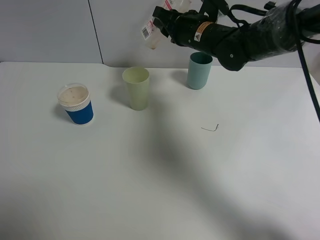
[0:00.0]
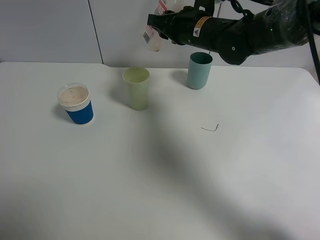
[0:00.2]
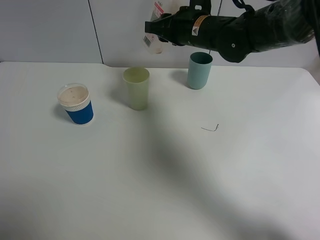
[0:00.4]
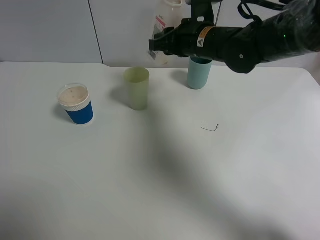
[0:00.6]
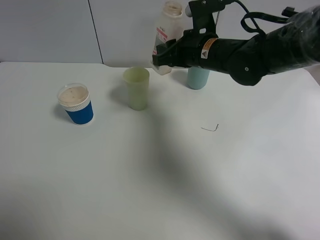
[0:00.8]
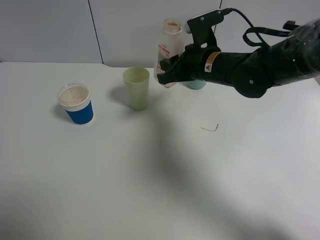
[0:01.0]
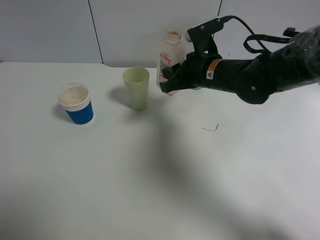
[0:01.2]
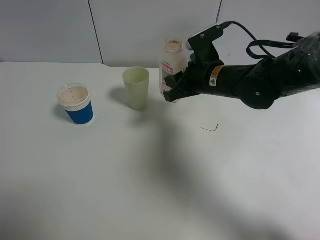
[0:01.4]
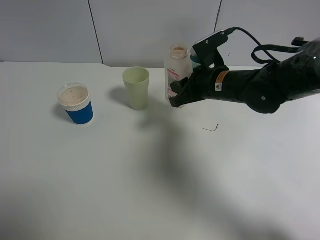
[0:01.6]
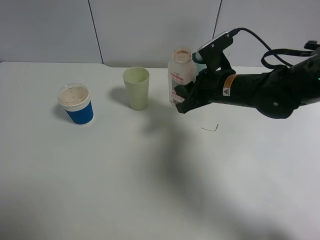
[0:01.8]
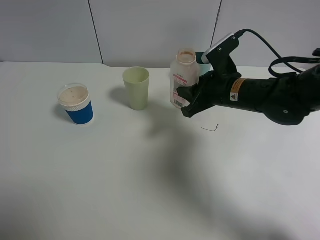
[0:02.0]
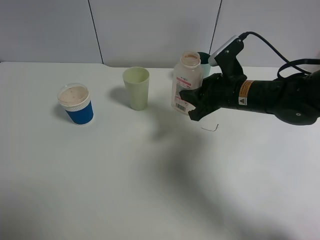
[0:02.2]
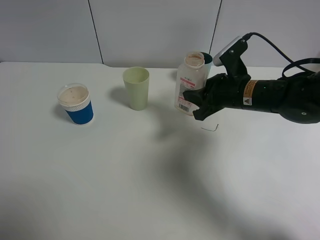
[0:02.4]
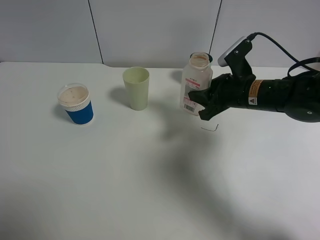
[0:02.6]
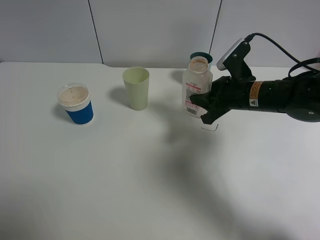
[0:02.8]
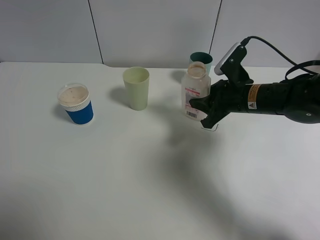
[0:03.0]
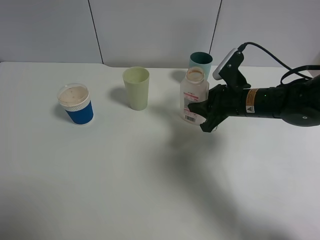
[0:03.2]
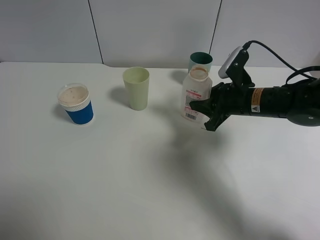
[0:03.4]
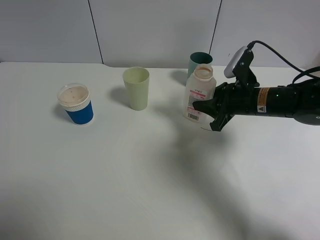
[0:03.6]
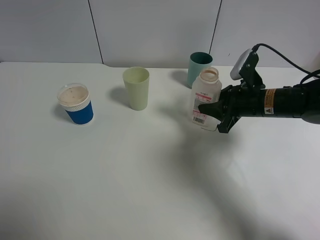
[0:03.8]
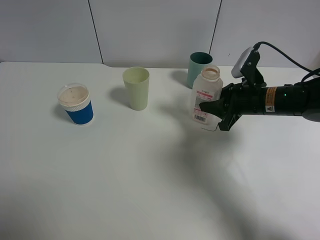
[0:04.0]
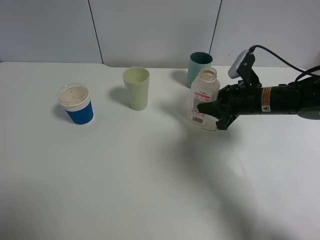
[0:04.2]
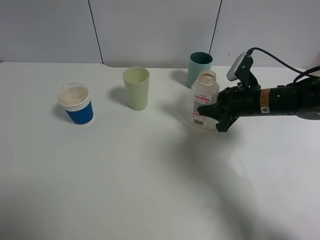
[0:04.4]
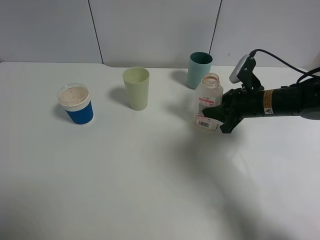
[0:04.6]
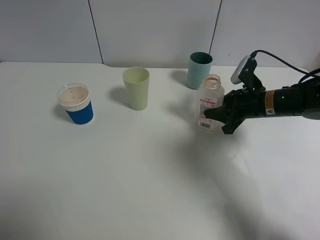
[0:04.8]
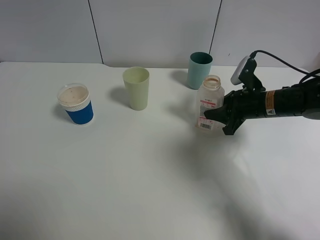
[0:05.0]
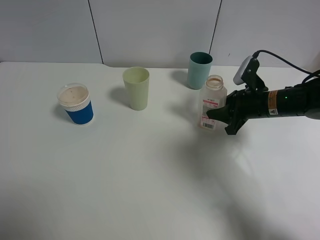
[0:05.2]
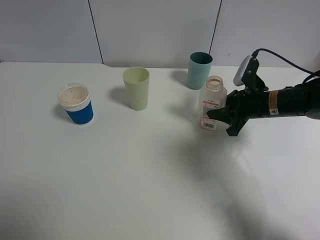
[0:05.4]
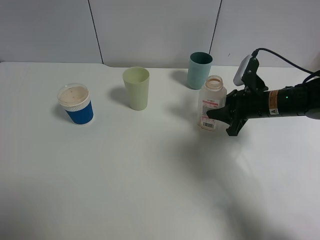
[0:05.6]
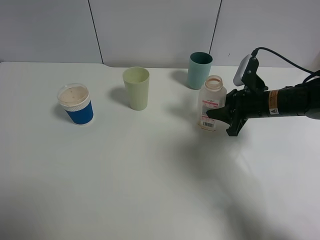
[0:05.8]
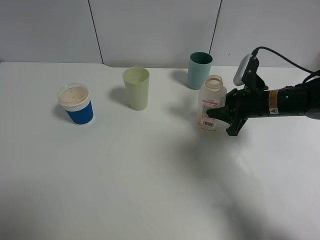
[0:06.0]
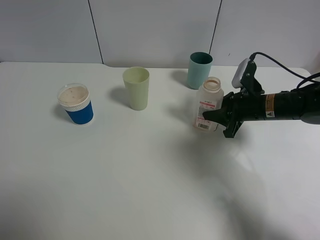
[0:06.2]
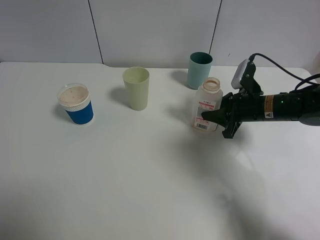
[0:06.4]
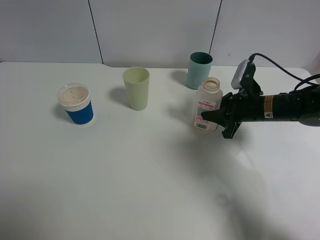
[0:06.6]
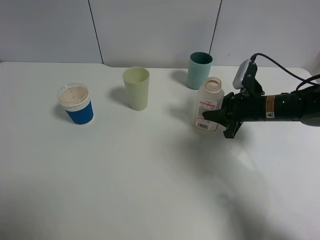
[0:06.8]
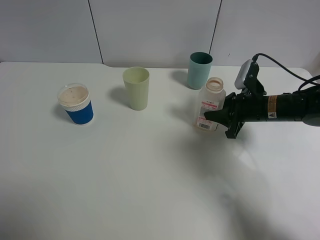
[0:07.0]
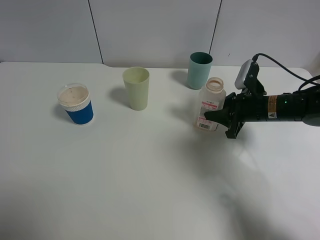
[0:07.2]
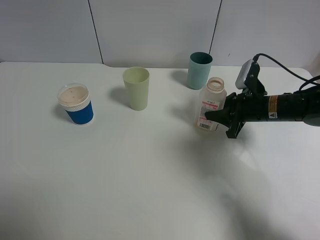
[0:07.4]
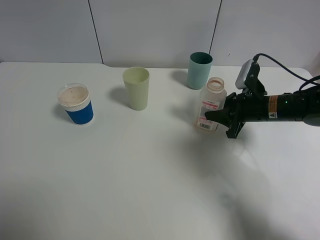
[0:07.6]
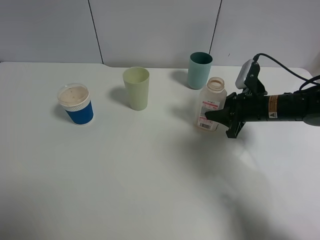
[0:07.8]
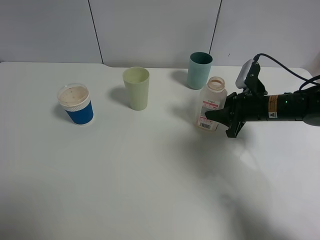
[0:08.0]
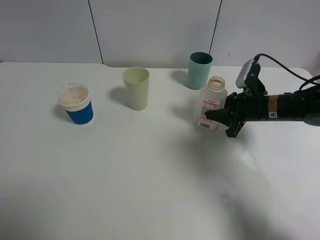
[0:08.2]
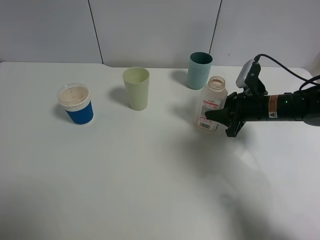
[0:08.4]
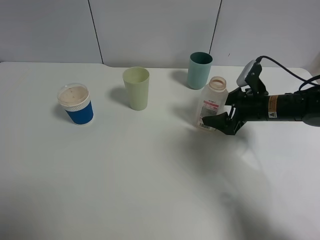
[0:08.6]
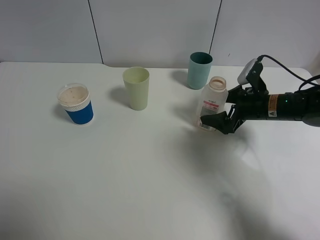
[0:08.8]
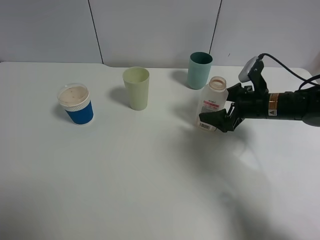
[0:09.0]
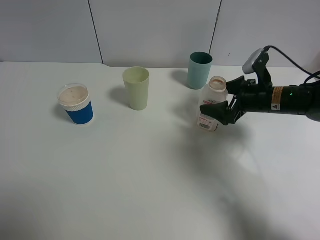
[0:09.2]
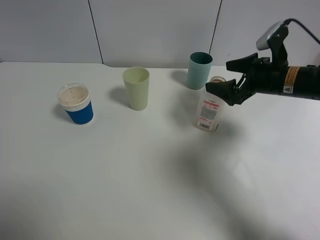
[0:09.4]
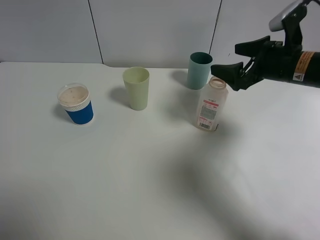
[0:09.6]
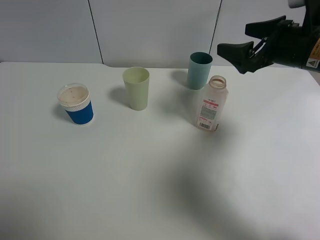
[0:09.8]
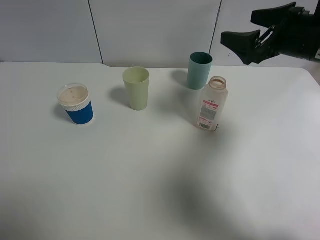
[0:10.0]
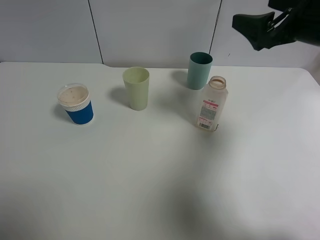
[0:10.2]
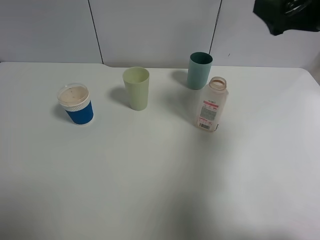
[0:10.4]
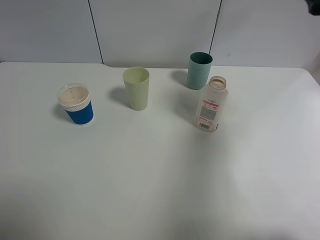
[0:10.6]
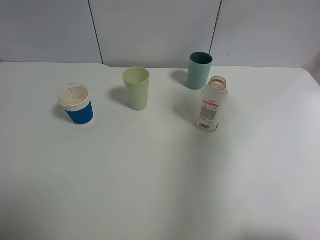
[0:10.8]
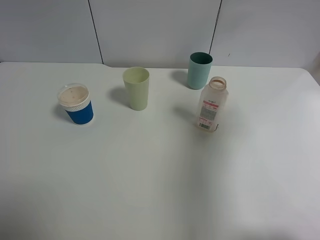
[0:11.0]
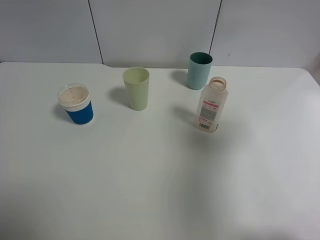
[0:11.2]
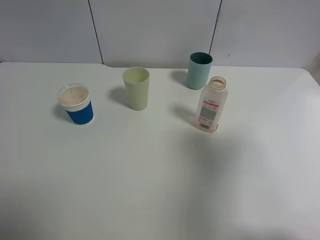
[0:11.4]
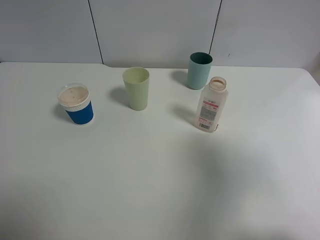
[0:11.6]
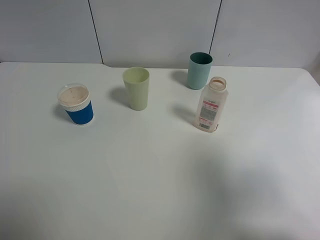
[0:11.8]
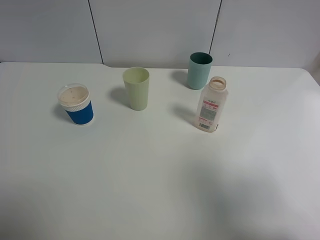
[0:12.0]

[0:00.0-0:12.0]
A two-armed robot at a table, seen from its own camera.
Task of the whole recording: use a gripper to hold the bottle of the drink and pour it into a random cup.
Step, 0:00.0 to 0:08.6: Place the cranberry juice bottle on the table with the right gripper.
0:00.0 to 0:01.6: The right gripper shifts roughly 10 cm backward and downward.
0:01.6 to 0:03.0: The right gripper goes some 5 cm to the right.
0:03.0 to 0:04.4: The grippers make only small movements.
0:04.4 to 0:07.6: The grippers stay close to where they were, moving slightly.
0:07.6 to 0:09.0: The right gripper opens.
0:09.0 to 0:10.4: The right gripper shifts roughly 20 cm upward.
0:10.4 to 0:12.0: The right gripper heads backward, covering some 30 cm.

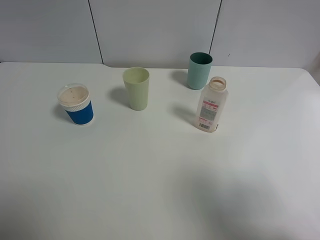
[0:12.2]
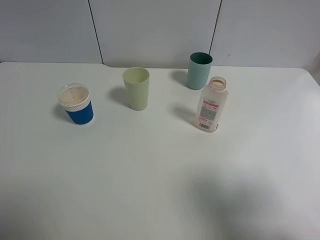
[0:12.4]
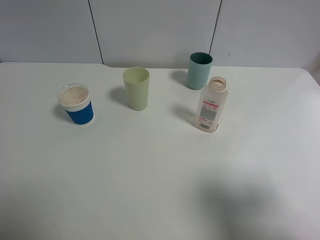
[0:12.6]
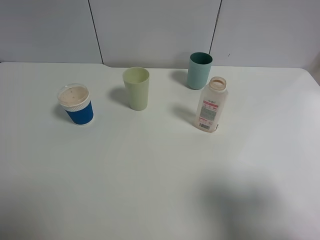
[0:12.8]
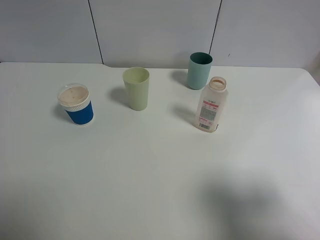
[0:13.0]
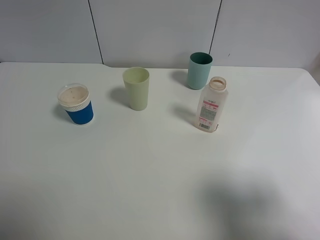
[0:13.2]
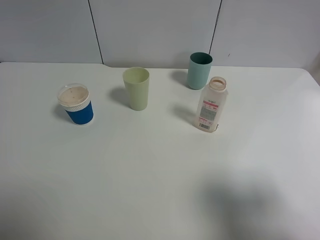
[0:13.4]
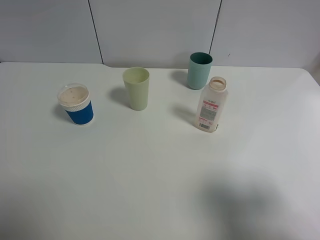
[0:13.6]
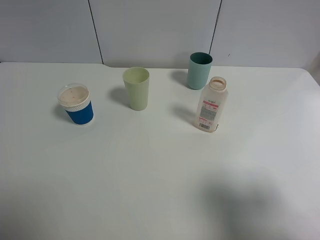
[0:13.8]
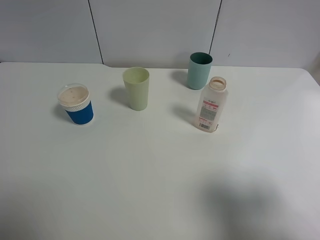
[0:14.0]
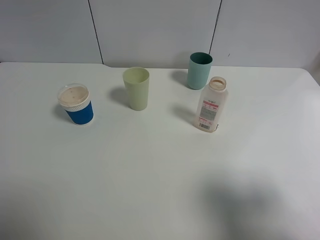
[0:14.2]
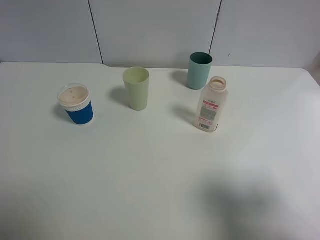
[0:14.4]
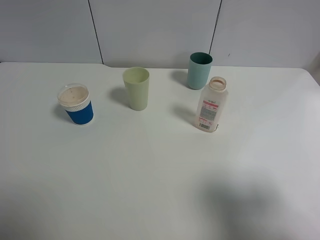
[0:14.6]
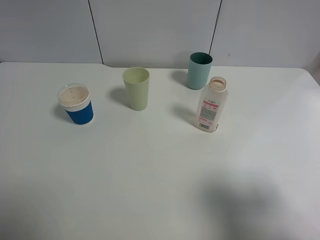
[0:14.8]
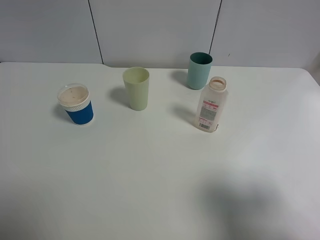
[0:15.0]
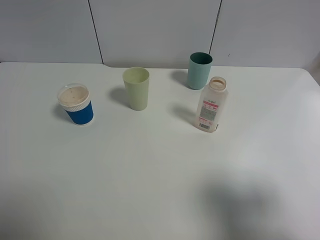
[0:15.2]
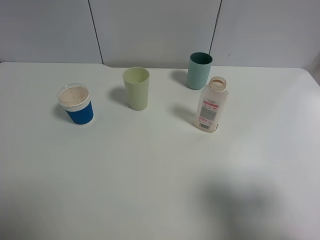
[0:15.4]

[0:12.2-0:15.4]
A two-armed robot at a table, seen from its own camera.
Task of the whole recording: use a gripper to hold the bottle of the drink and pour it into a random cup.
0:12.2 to 0:13.8: The right gripper moves downward, some 5 cm.
0:13.8 to 0:15.4: Both grippers stay put.
